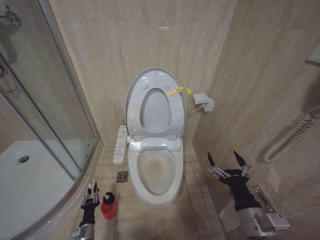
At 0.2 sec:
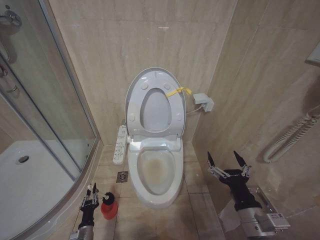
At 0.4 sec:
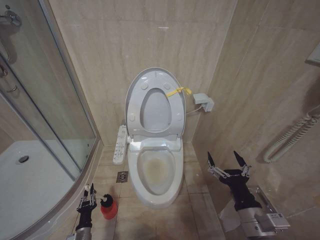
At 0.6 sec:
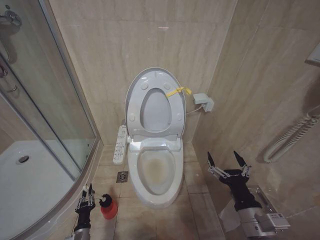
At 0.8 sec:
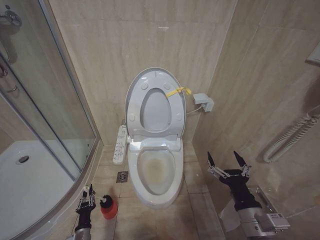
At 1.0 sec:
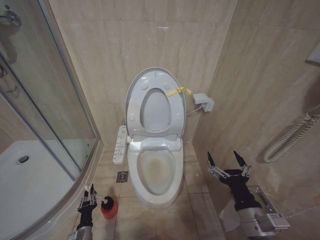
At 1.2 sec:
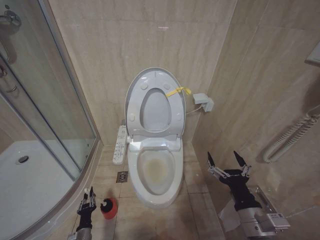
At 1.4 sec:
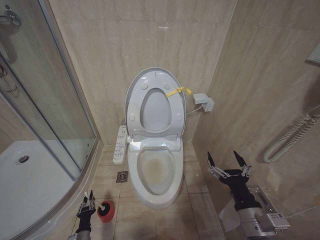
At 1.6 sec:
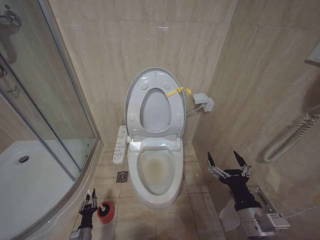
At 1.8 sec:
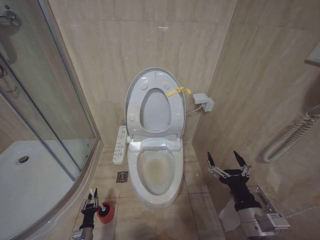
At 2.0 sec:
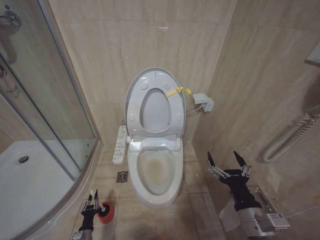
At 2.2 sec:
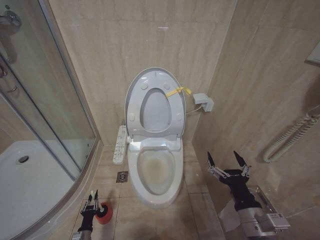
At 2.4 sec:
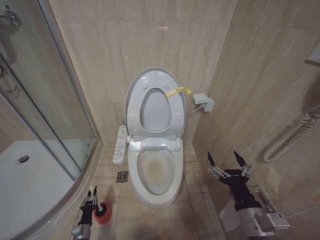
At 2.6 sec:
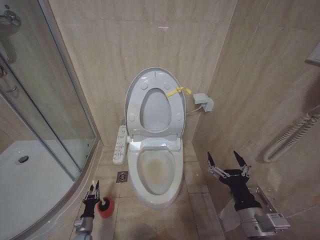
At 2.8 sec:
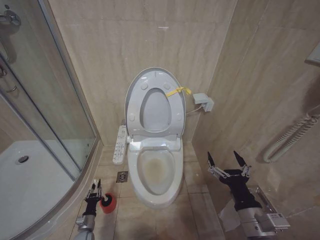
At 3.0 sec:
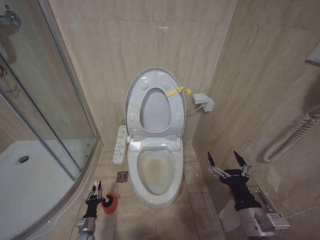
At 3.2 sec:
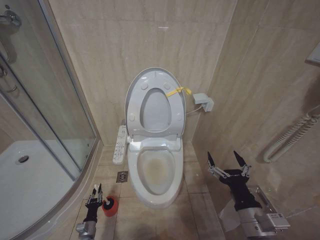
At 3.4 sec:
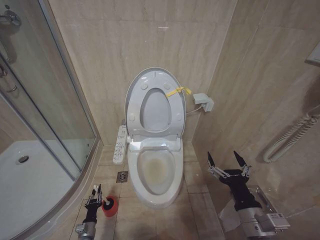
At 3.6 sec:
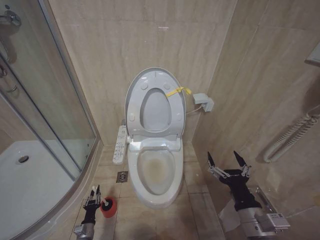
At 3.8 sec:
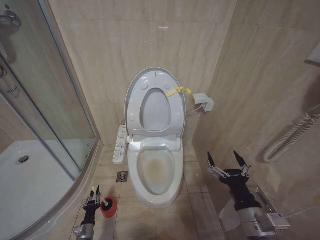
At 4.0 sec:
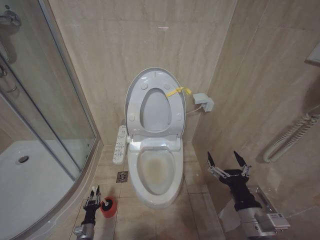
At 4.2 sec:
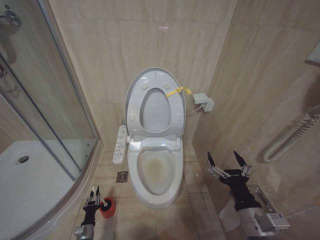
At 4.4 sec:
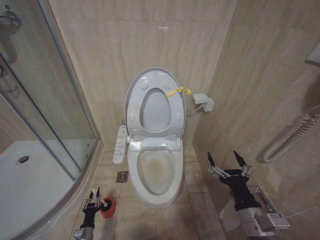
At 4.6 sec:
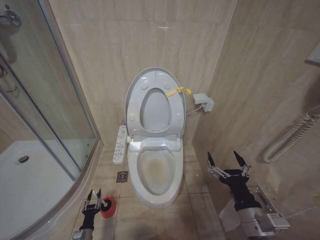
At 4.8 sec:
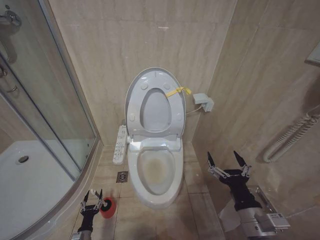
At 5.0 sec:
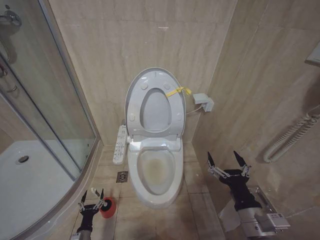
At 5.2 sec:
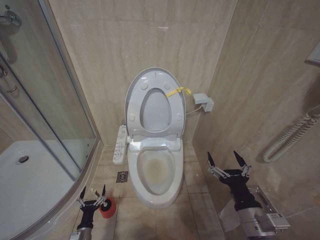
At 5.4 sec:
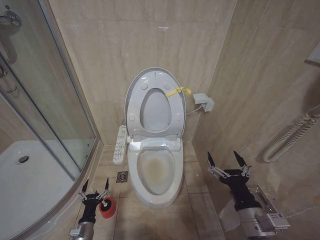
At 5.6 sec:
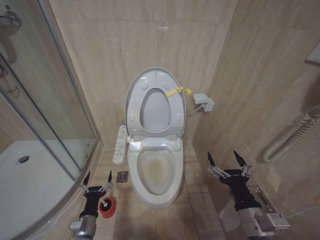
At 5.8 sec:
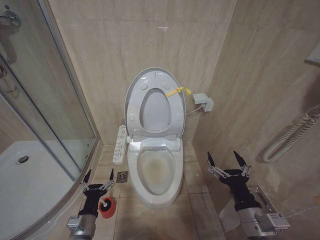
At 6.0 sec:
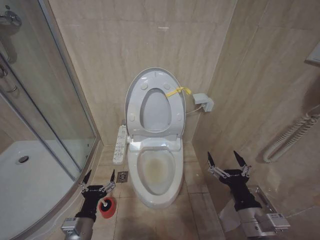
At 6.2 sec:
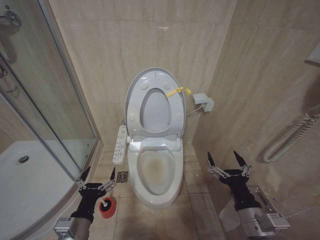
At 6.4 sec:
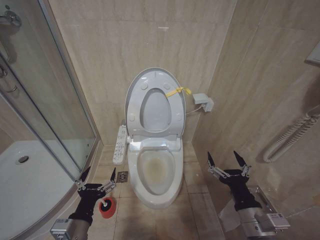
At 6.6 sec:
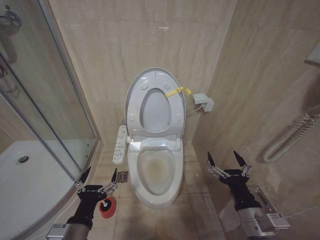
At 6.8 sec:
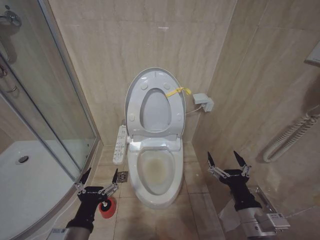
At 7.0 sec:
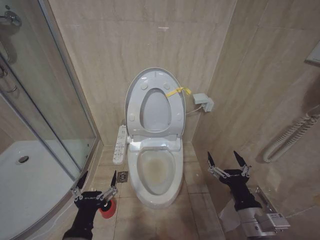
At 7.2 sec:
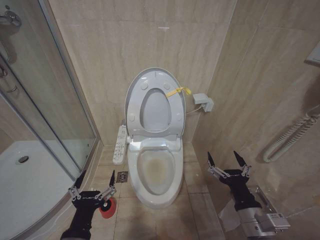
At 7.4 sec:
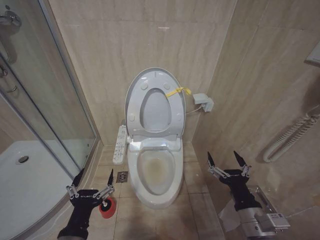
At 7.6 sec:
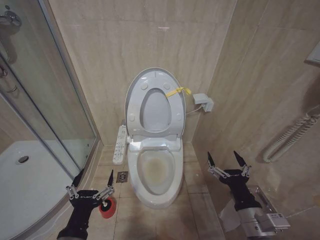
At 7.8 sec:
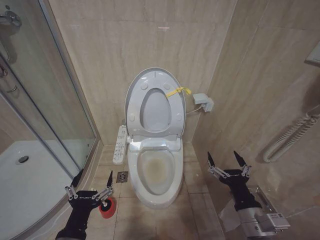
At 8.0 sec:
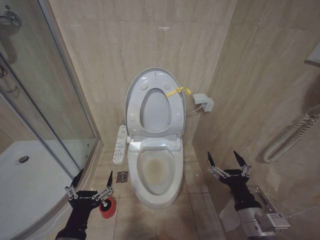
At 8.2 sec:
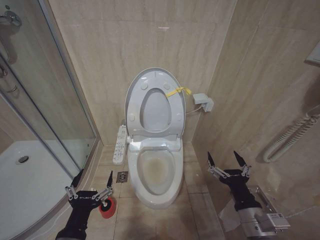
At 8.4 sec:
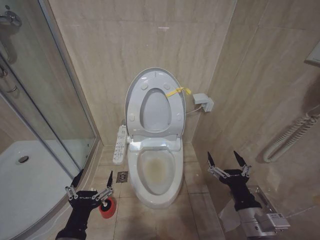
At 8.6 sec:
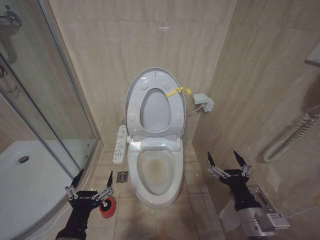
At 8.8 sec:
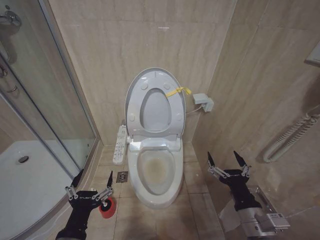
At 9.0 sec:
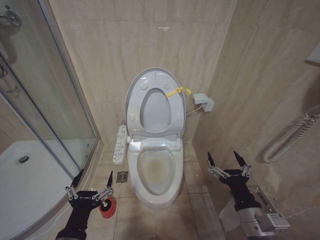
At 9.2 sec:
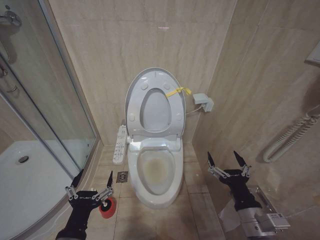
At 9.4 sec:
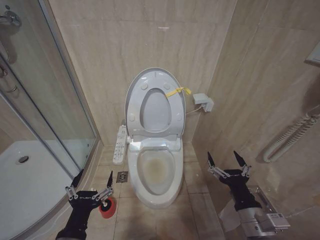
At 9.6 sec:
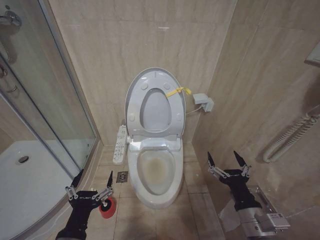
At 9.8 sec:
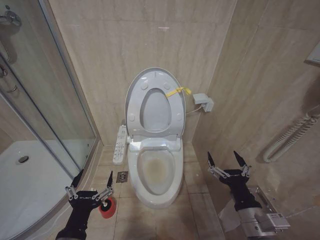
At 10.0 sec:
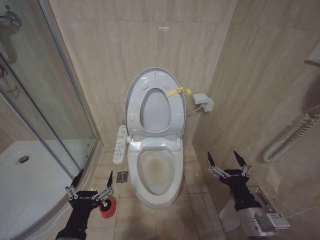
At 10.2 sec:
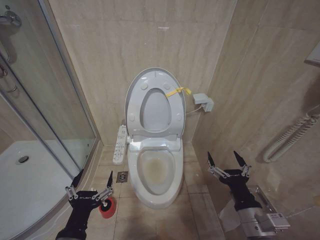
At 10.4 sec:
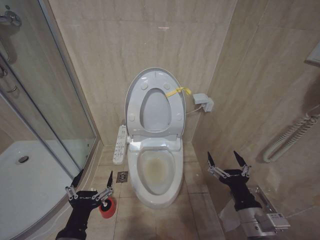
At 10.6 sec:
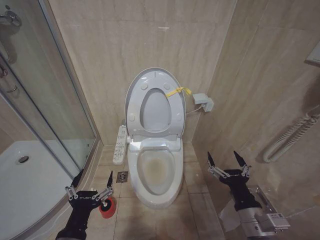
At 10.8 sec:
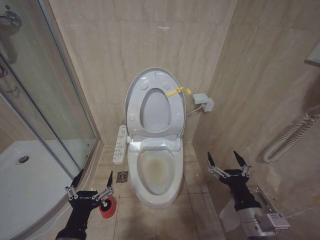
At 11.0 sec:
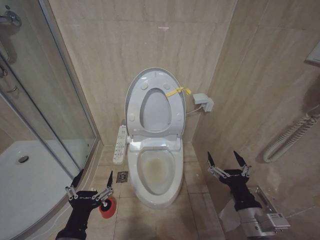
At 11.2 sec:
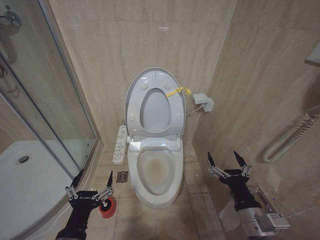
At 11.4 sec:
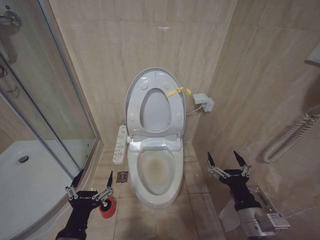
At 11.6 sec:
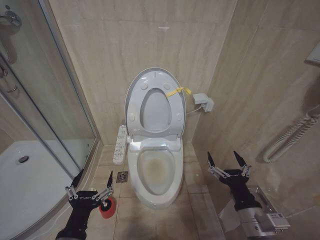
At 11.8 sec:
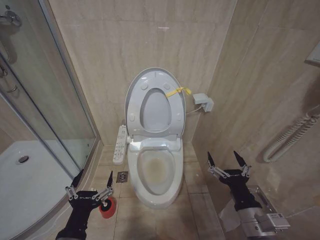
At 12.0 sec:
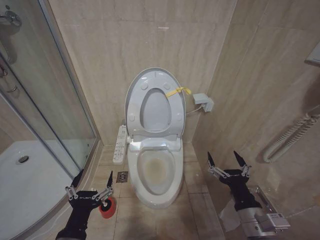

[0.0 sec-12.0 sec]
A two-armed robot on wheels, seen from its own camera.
Task of the whole recording: Open the toilet lid, clean the toilet bowl with a toilet brush, close the toilet lid, and flush.
0.0 sec to 1.6 sec: The grippers make only small movements.
1.6 sec to 3.0 sec: The left gripper is displaced forward by about 5 cm.
3.0 sec to 4.4 sec: The grippers move only a little.
4.4 sec to 6.0 sec: The left gripper is displaced upward by approximately 30 cm, and opens its fingers.
6.0 sec to 7.6 sec: The left gripper moves upward and backward, roughly 15 cm.
7.6 sec to 12.0 sec: Both grippers stay about where they are.

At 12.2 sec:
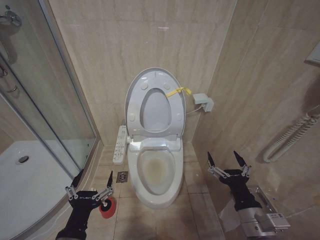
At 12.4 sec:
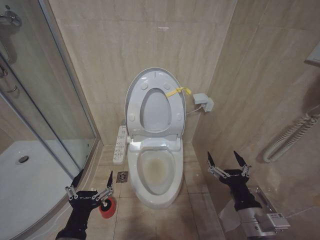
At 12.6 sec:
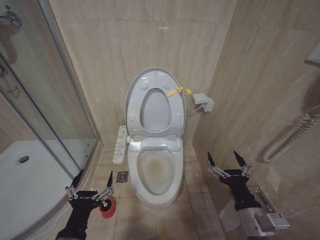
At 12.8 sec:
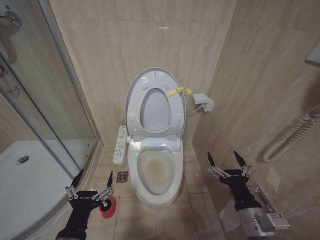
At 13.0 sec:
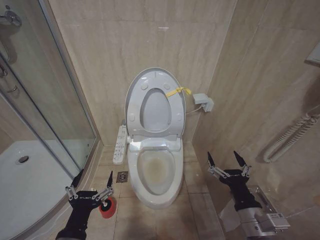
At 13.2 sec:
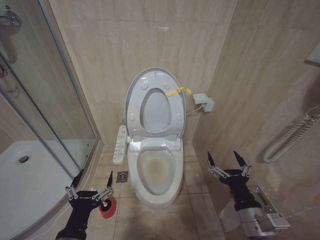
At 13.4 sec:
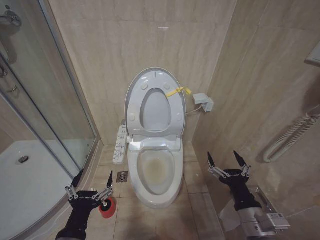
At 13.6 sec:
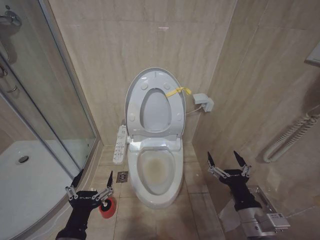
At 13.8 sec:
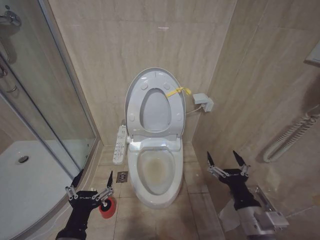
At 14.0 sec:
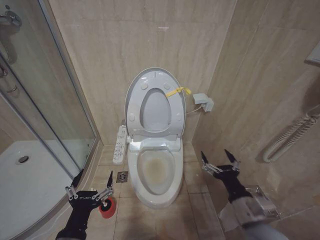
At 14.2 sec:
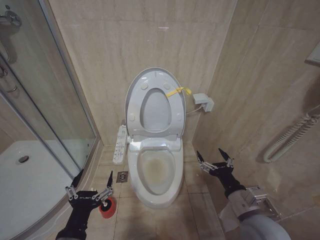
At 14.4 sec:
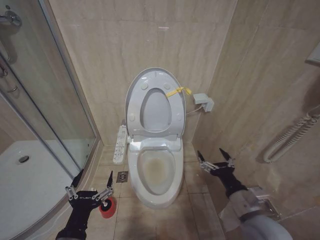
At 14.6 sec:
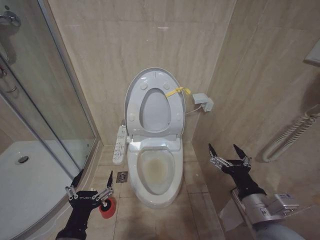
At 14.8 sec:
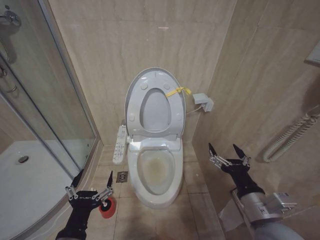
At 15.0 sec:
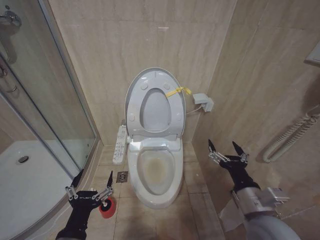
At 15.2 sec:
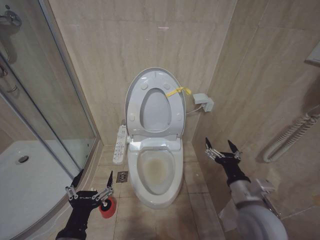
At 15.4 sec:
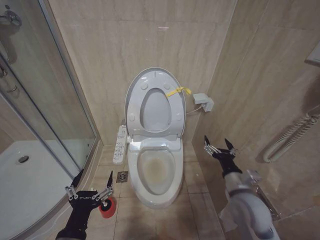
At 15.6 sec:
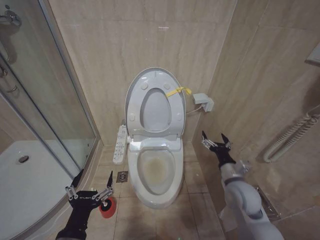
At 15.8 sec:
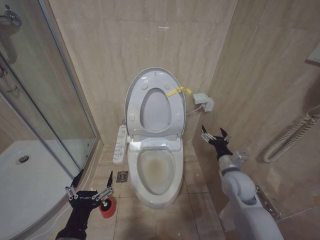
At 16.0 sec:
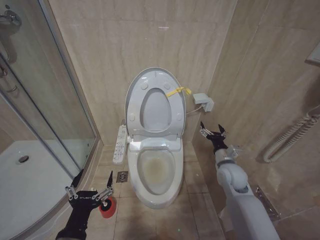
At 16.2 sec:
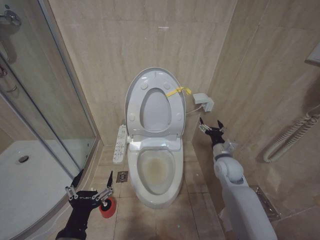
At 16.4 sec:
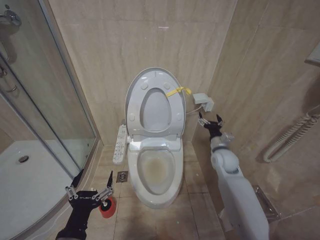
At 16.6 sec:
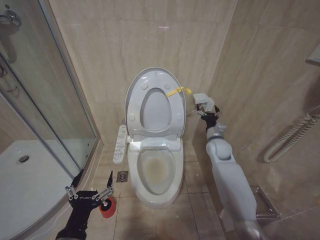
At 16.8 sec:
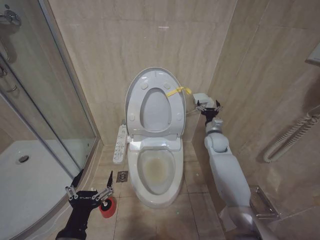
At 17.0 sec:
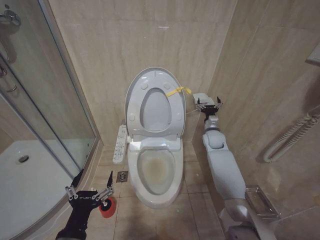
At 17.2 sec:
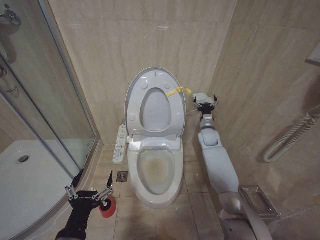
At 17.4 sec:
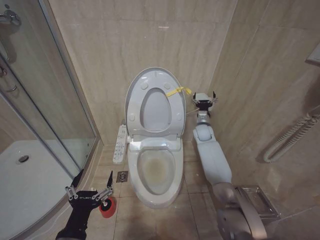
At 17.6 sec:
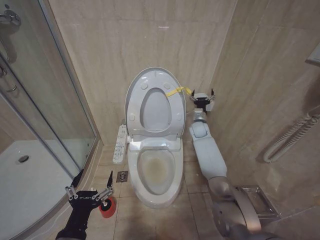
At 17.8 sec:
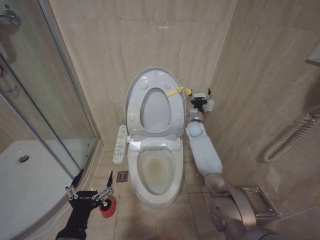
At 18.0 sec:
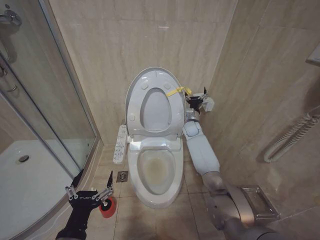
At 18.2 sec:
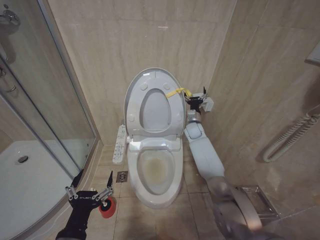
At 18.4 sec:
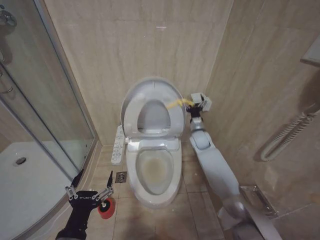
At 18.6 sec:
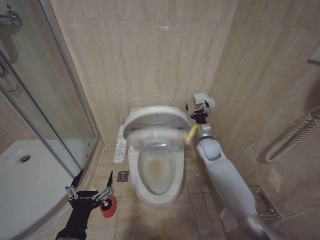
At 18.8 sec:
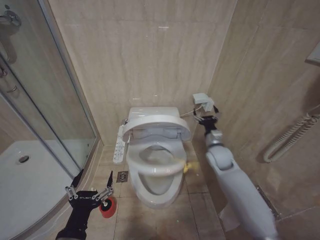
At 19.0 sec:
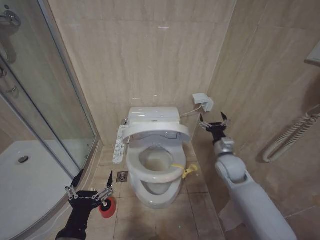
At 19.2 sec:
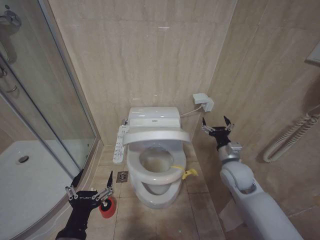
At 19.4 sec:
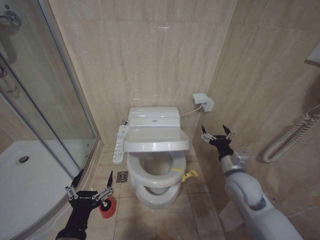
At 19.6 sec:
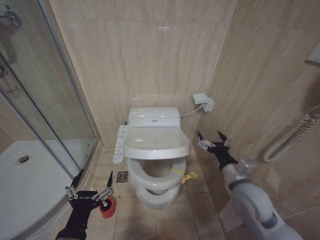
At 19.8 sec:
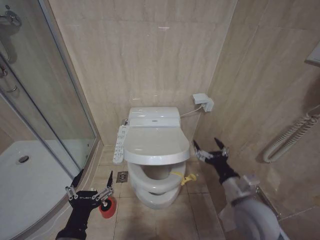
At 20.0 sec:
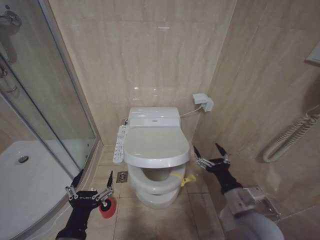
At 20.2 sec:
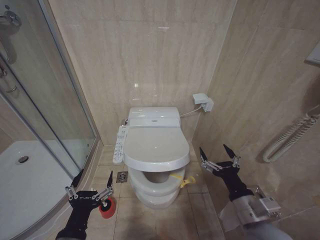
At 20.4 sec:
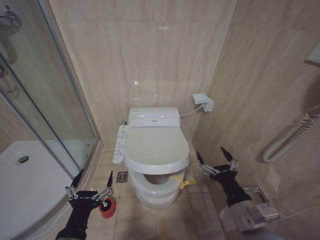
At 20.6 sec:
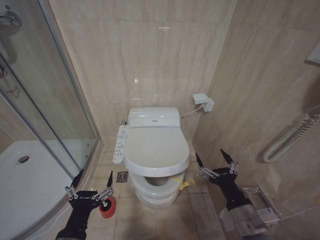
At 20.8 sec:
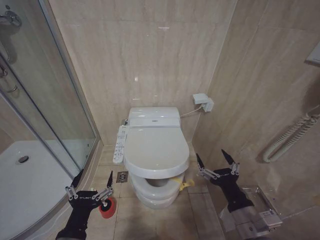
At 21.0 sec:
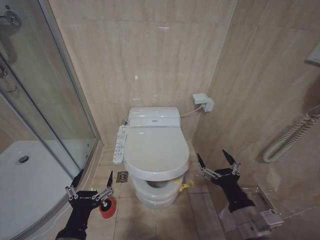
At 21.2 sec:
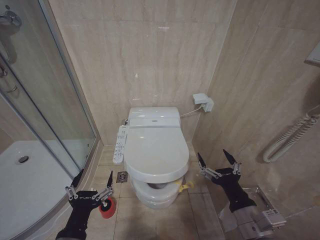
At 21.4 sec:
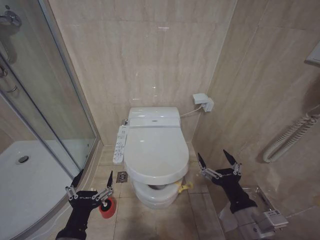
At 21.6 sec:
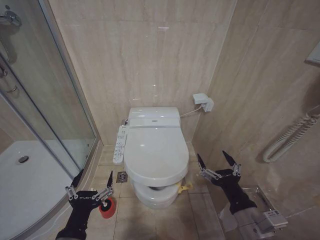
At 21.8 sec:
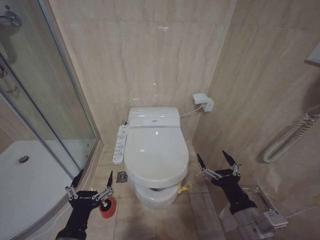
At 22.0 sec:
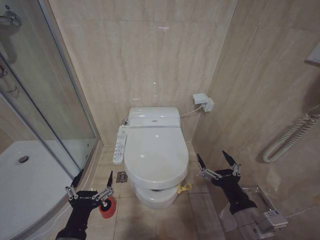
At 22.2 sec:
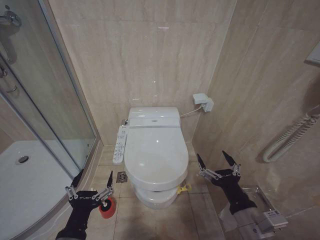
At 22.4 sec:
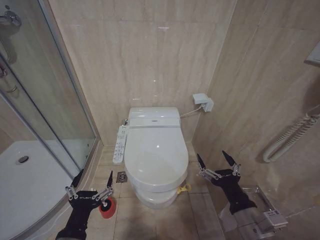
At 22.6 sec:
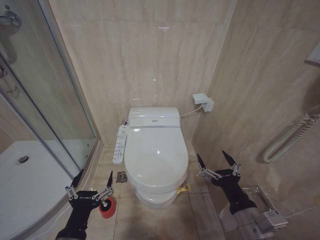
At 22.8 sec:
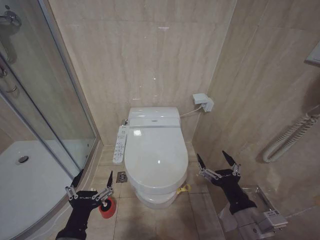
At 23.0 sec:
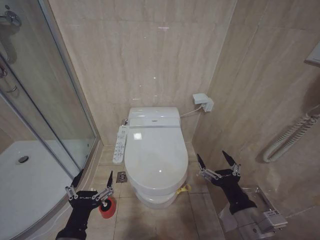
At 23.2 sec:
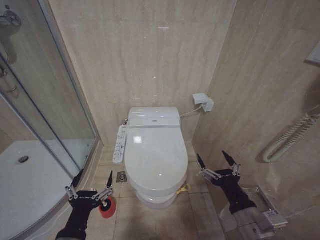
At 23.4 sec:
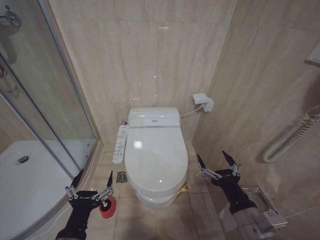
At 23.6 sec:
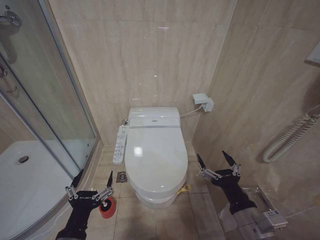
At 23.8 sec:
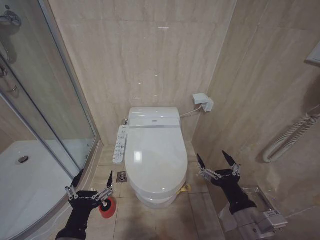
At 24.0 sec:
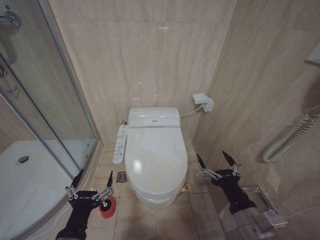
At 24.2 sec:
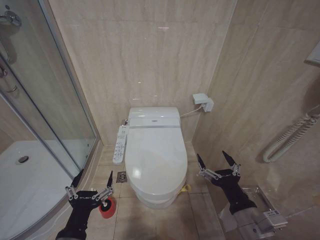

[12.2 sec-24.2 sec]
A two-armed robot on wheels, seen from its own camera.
Task of the whole recording: Open the toilet lid, clean the toilet bowl with a toilet brush, close the toilet lid, and flush.
12.2 sec to 13.8 sec: Neither gripper changes place.
13.8 sec to 15.2 sec: The right gripper ends up about 5 cm from where it was.
15.2 sec to 16.6 sec: The right gripper moves forward, about 25 cm.
16.6 sec to 18.2 sec: The right gripper travels forward and to the left by some 15 cm.
18.2 sec to 19.8 sec: The right gripper moves backward, roughly 35 cm.
19.8 sec to 21.2 sec: The right gripper goes about 10 cm backward.
21.2 sec to 24.2 sec: Neither gripper changes place.
